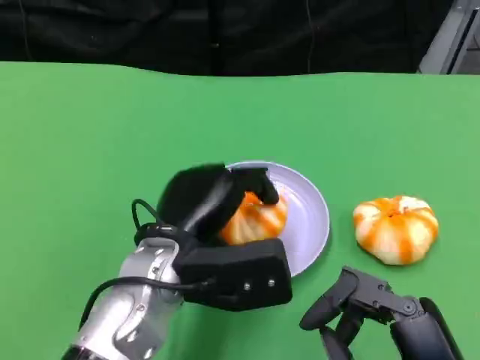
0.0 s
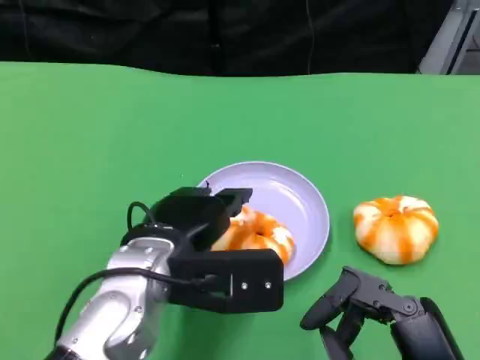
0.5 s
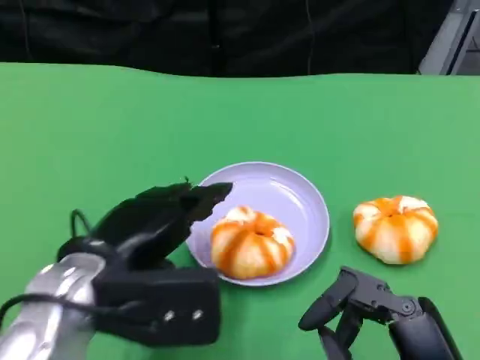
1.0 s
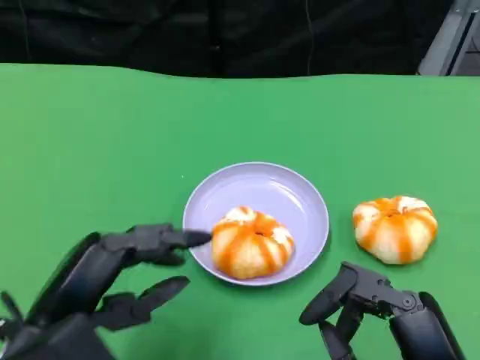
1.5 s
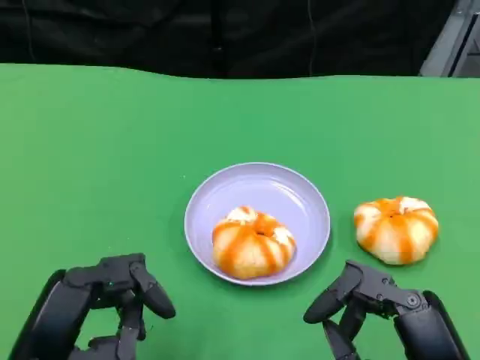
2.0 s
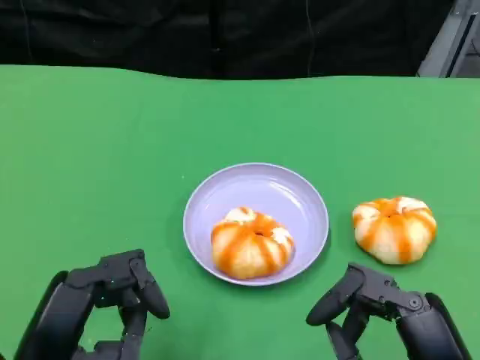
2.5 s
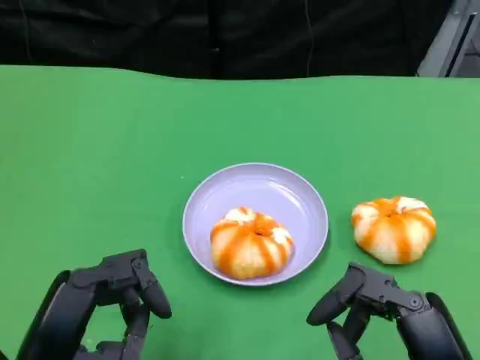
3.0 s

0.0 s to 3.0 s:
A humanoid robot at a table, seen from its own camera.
Task of the whole recording: Grasp the bread from the table and place it into the plate.
0.0 to 1.5 s: The left hand moves to the left and backward, approximately 15 cm.
1.5 to 3.0 s: The hands make only small movements.

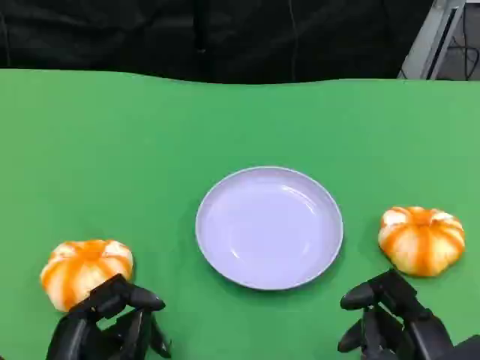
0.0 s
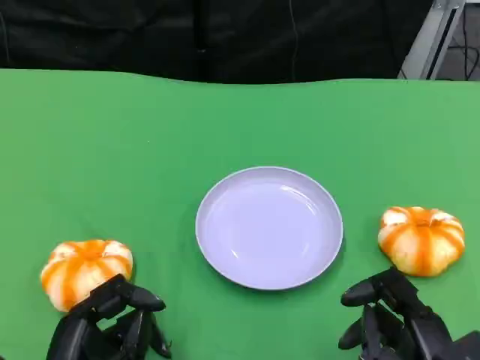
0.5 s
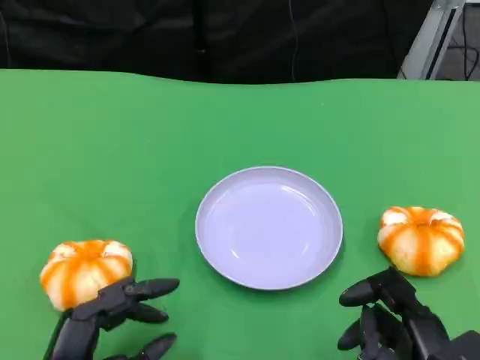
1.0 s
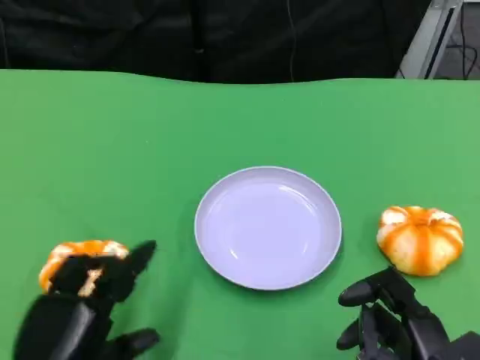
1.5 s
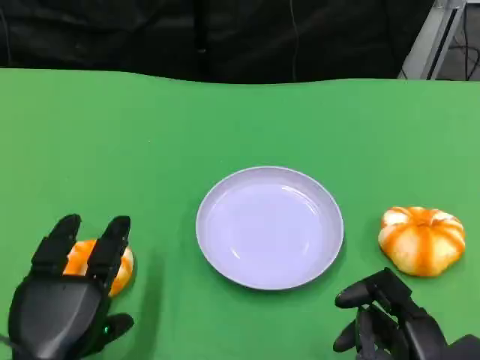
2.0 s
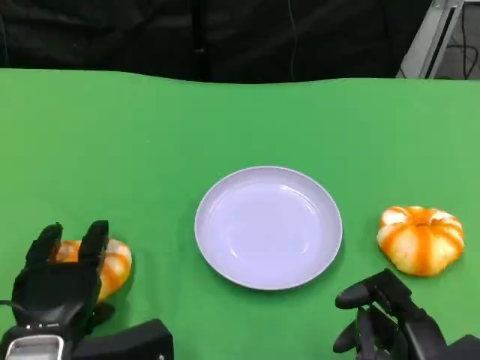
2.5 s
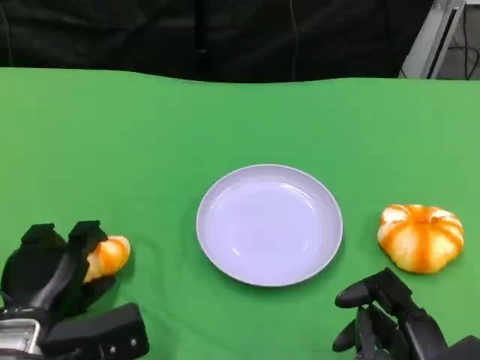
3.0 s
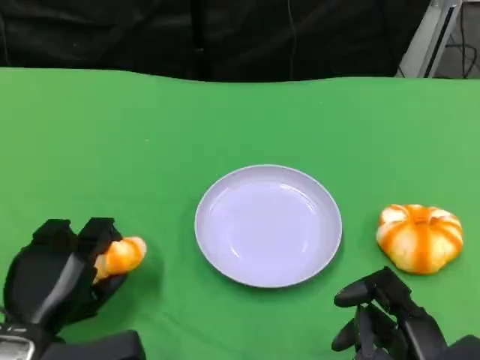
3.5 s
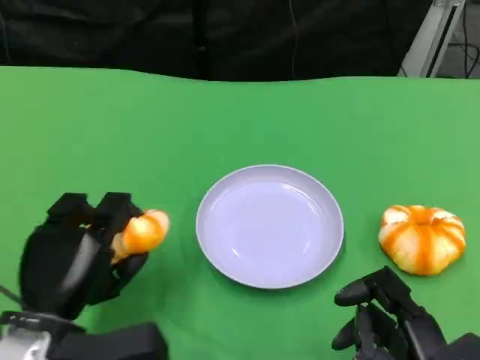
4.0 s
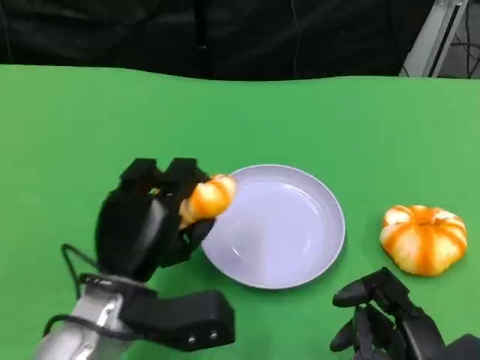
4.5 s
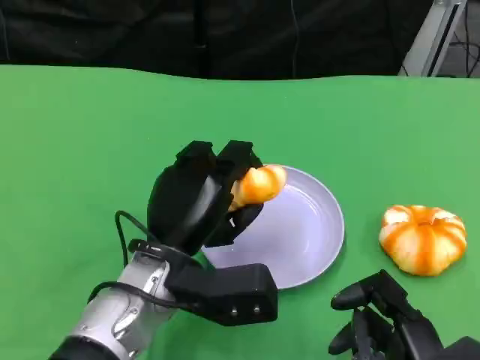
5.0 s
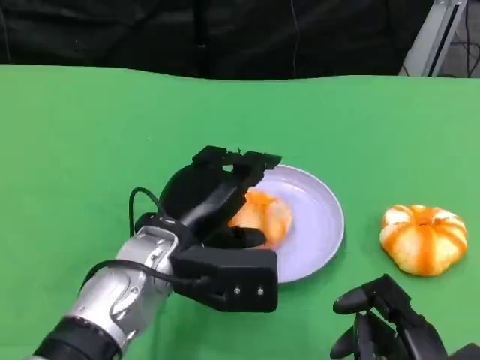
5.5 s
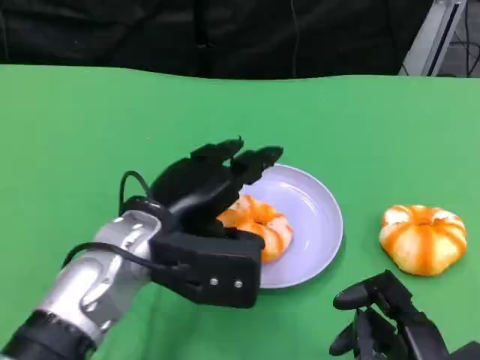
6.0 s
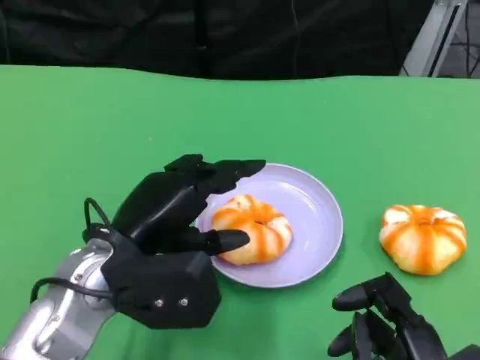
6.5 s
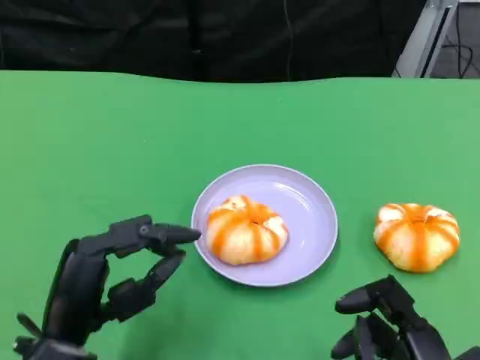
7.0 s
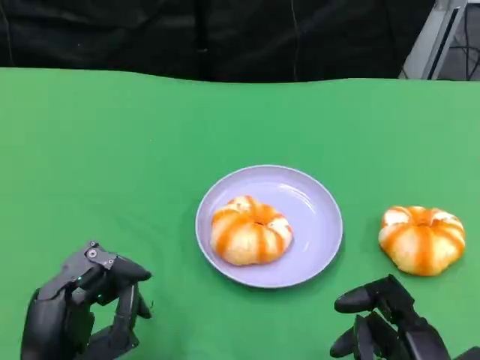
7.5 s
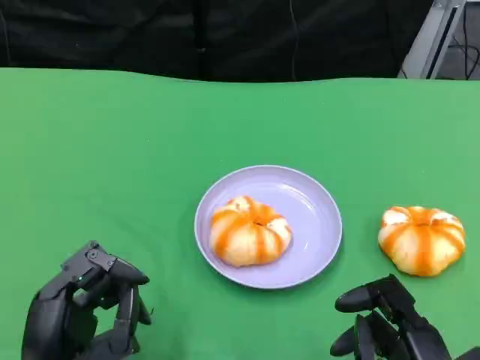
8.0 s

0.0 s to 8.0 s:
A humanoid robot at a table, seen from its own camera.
Task of the whole recording: Grasp the bread from the table and place it into the plate.
0.0 to 2.0 s: The left hand changes place by roughly 5 cm.
4.0 to 6.0 s: The left hand moves to the right, upward and forward, roughly 10 cm.
6.0 to 8.0 s: The left hand travels backward, downward and to the left by approximately 15 cm.

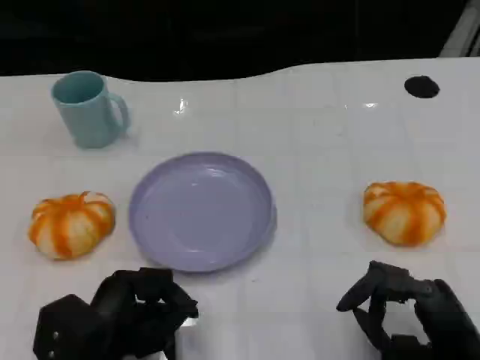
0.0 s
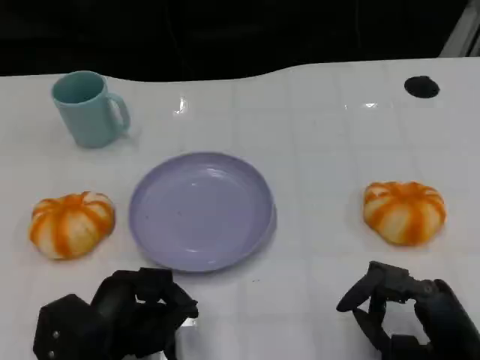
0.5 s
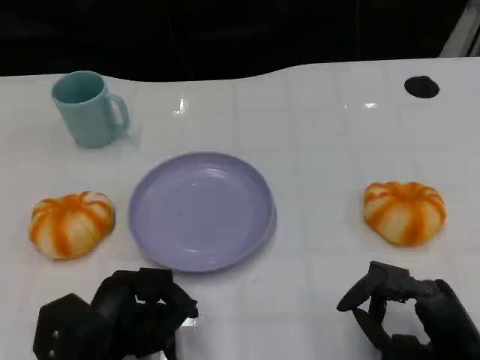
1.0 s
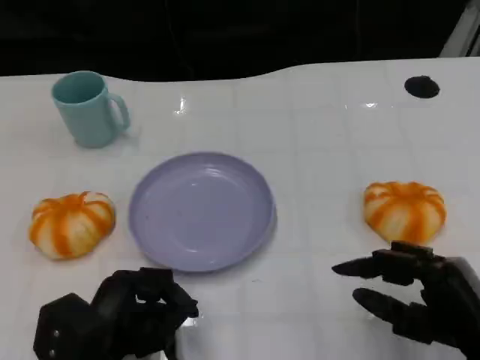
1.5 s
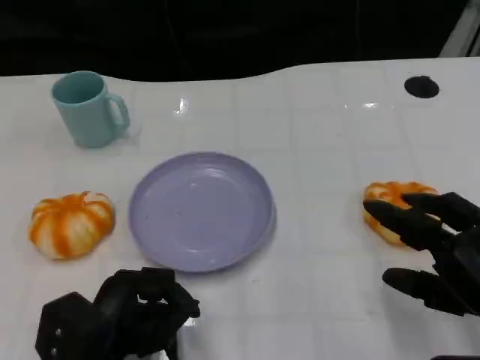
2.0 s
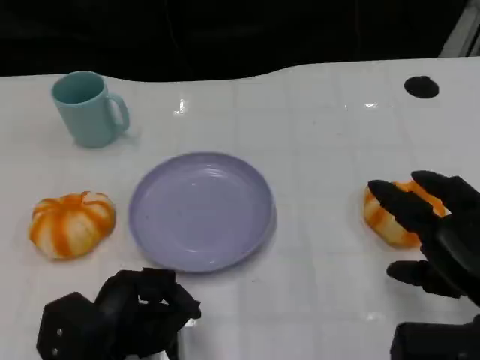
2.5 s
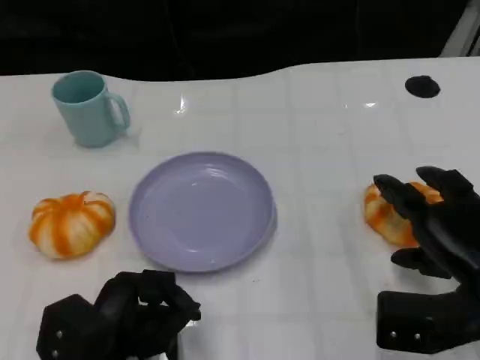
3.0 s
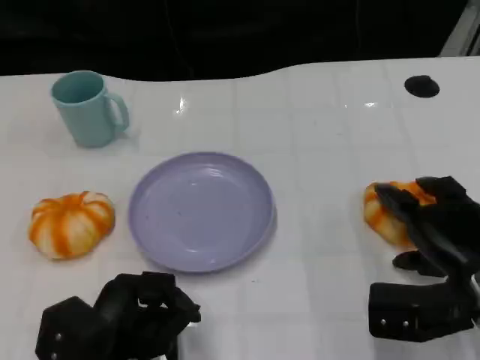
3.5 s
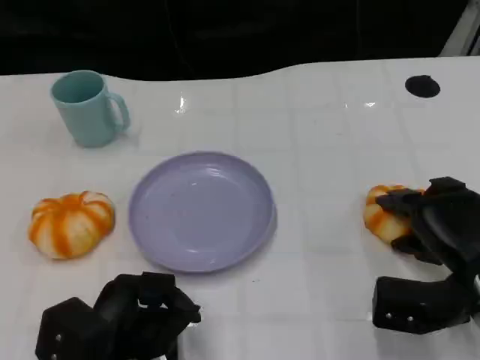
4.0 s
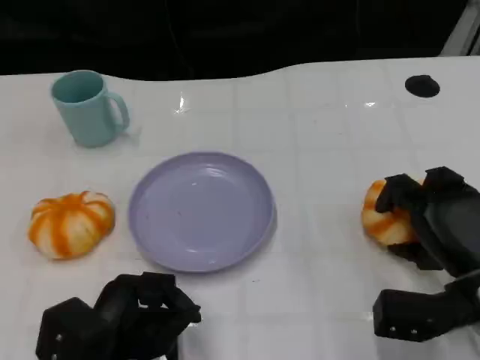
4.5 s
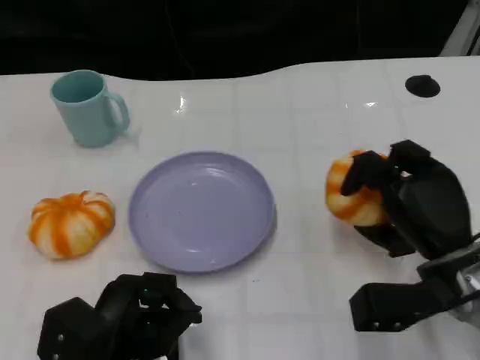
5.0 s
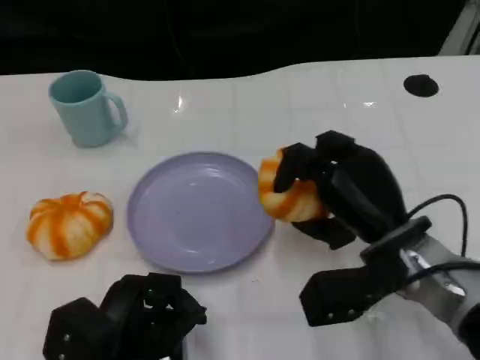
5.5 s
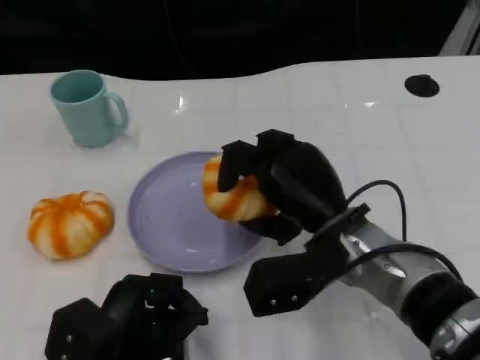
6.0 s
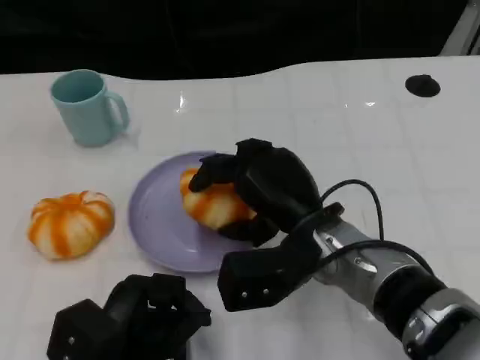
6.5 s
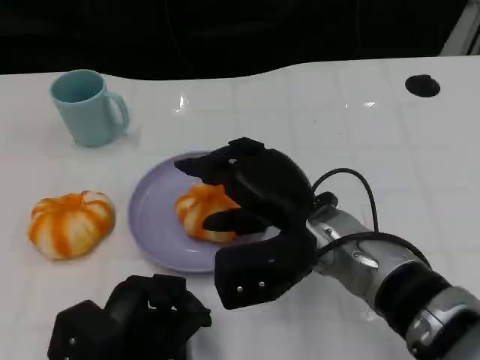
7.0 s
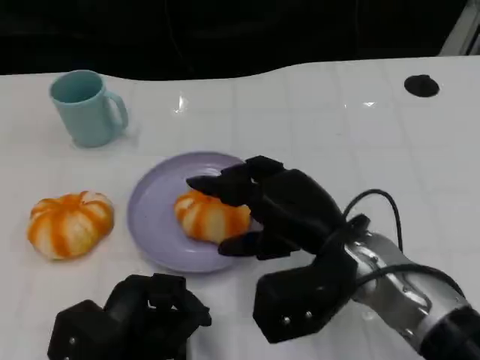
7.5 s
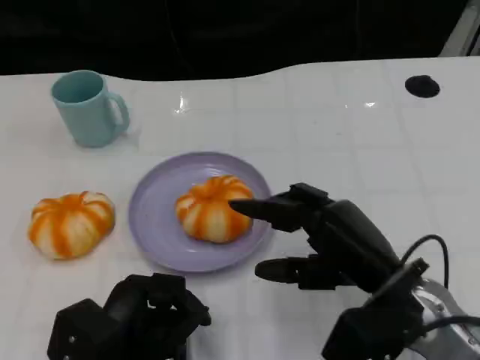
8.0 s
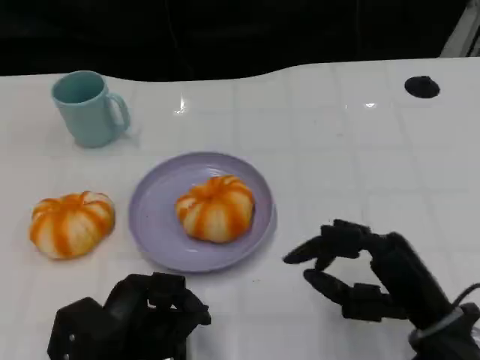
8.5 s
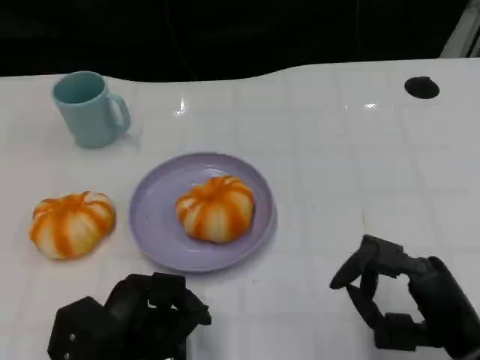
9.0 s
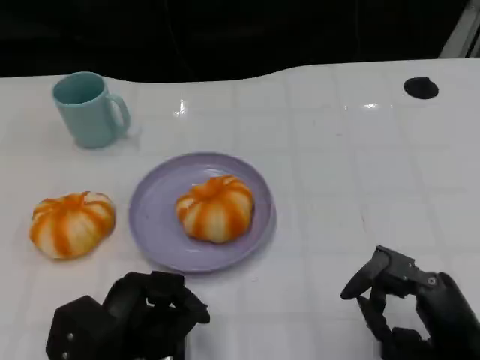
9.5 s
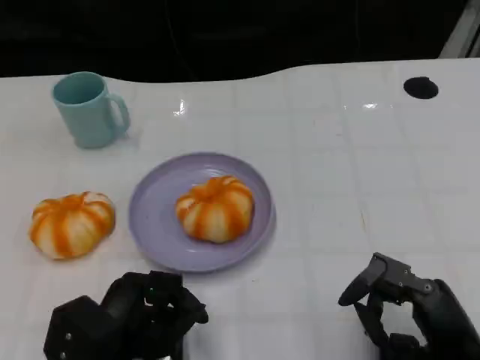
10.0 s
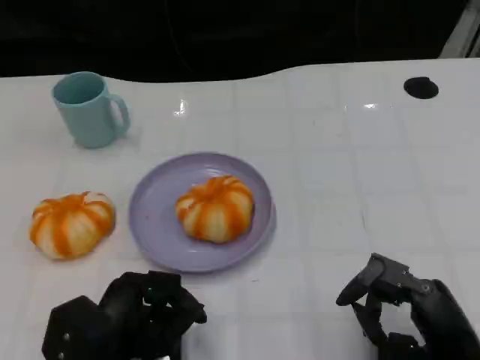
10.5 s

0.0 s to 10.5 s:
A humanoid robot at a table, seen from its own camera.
Task of the whole recording: Grasp the bread from the table and place it into the plate.
0.0 to 2.0 s: The right hand heads upward, covering roughly 5 cm.
2.0 to 4.0 s: The right hand shifts approximately 10 cm forward and downward.
4.0 to 6.5 s: The right hand goes approximately 15 cm to the left.
6.5 to 8.5 s: The right hand moves to the right and backward, approximately 15 cm.
8.5 to 10.5 s: The right hand changes place by roughly 5 cm.

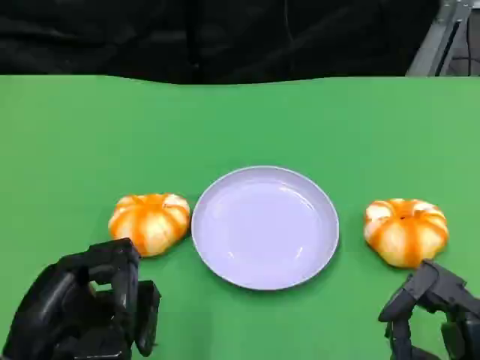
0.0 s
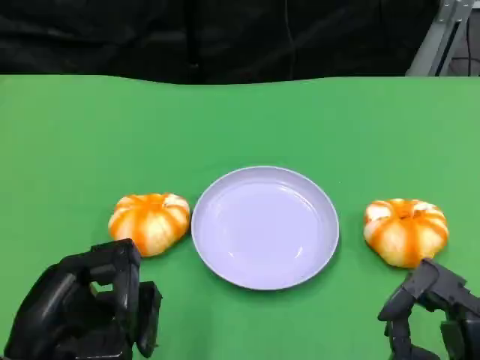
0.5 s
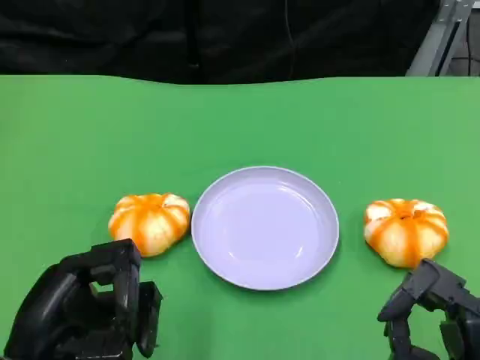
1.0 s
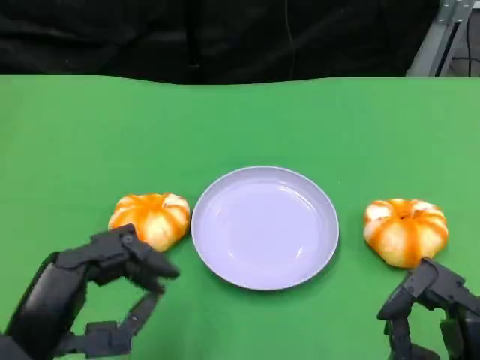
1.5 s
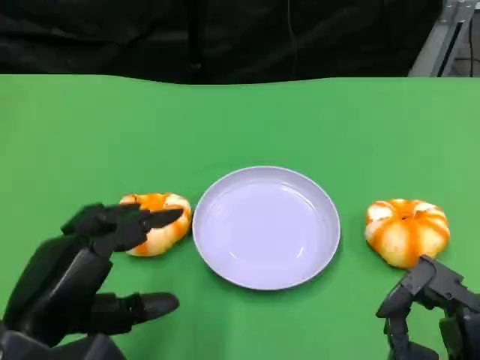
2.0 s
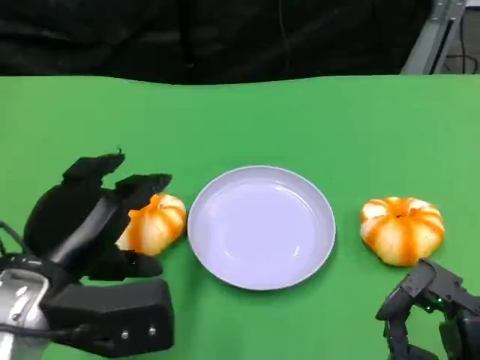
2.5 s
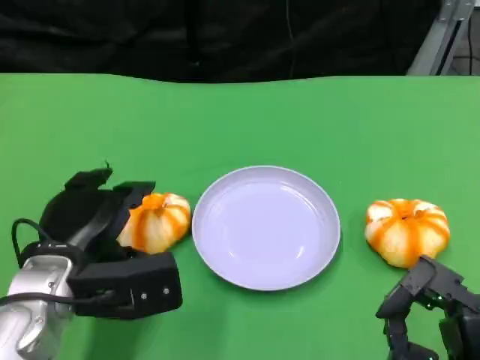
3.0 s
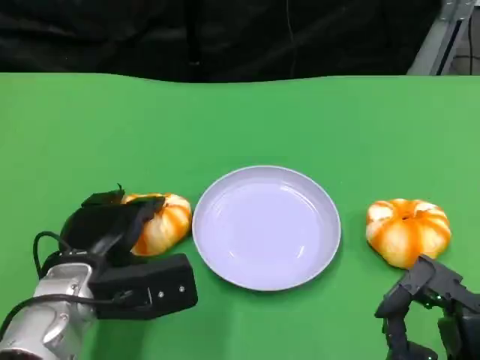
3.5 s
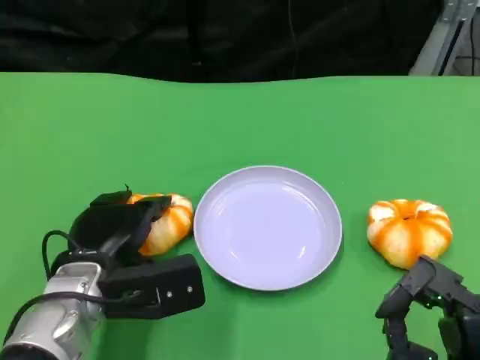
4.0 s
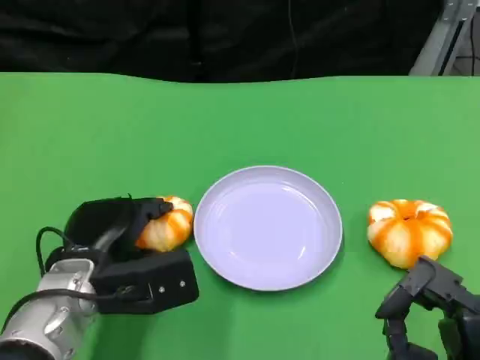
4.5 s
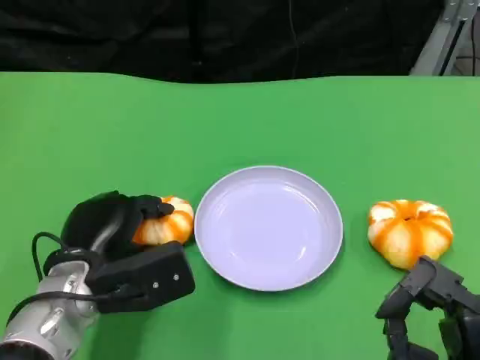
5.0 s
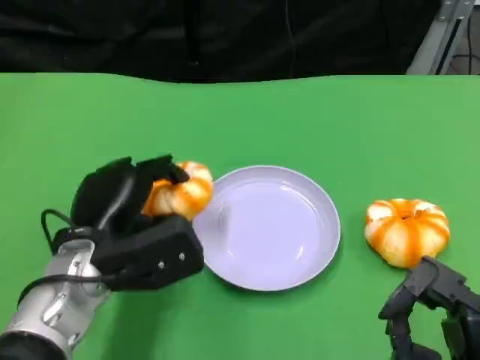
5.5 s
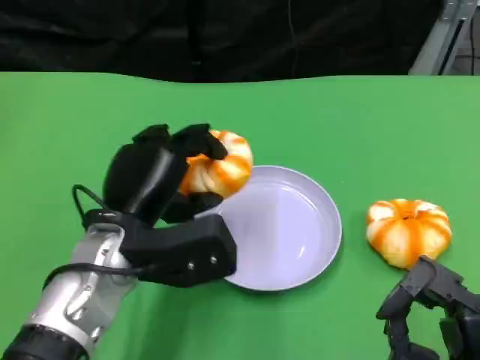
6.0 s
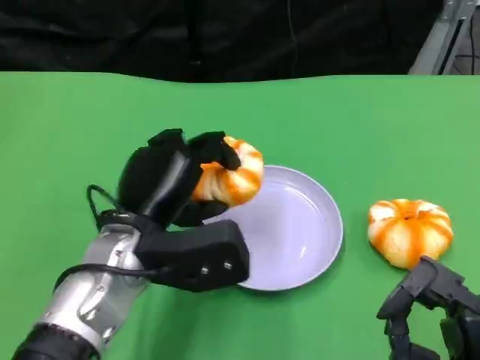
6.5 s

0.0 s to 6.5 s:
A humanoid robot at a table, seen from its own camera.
Task of the whole recording: Grasp the bread from the table and place it into the plate.
2.0 to 4.5 s: The left hand moves forward and downward, approximately 15 cm.
4.5 to 6.5 s: The left hand shifts about 10 cm to the right and upward.
